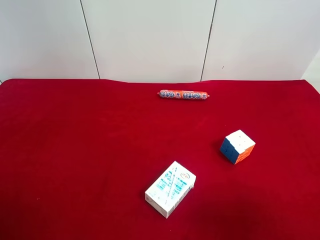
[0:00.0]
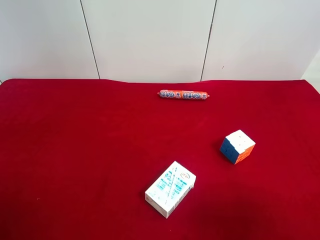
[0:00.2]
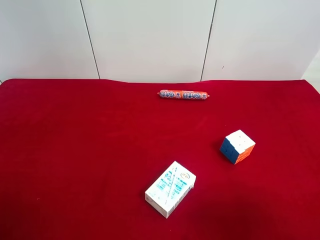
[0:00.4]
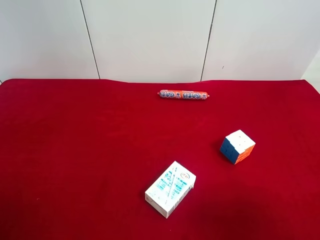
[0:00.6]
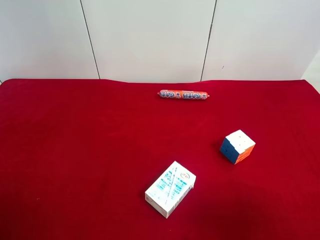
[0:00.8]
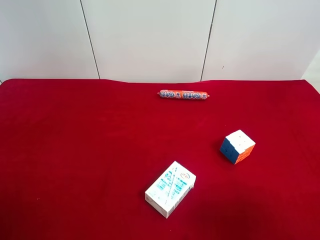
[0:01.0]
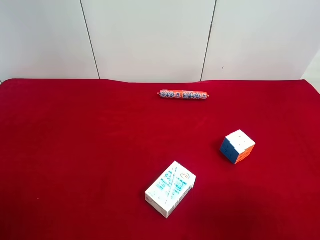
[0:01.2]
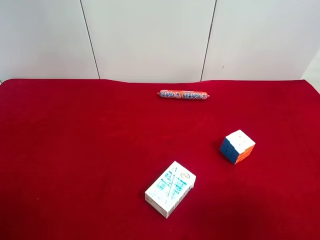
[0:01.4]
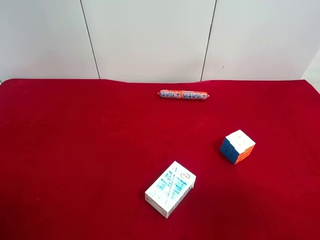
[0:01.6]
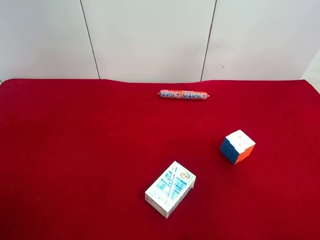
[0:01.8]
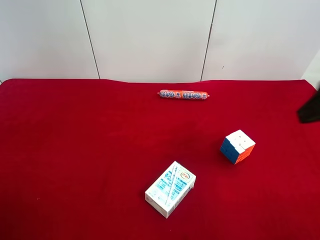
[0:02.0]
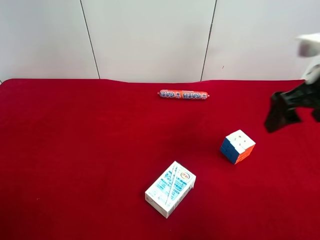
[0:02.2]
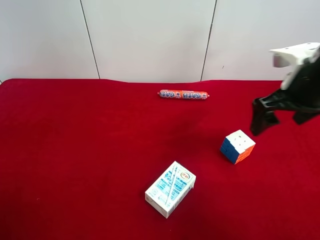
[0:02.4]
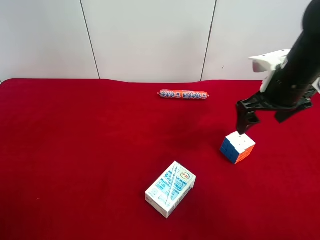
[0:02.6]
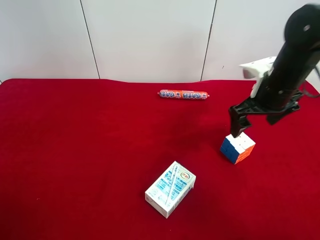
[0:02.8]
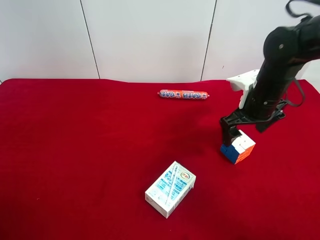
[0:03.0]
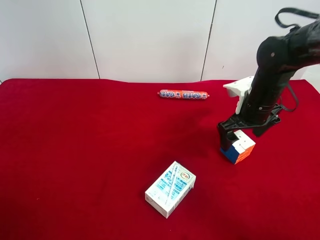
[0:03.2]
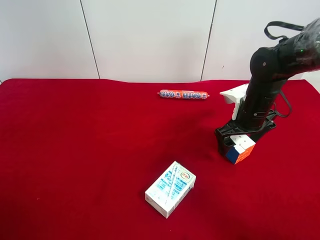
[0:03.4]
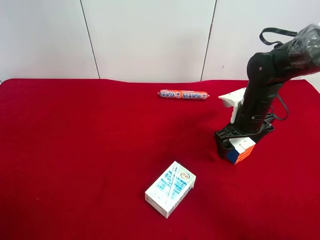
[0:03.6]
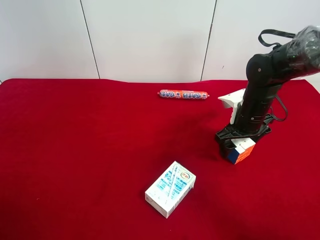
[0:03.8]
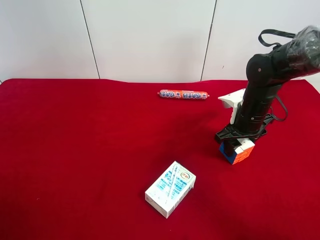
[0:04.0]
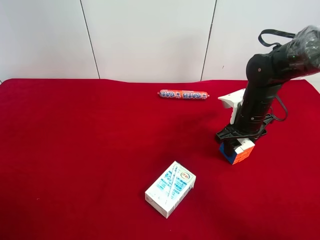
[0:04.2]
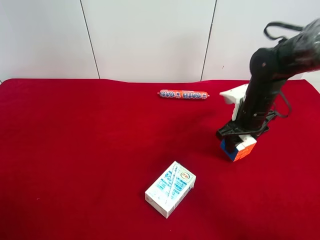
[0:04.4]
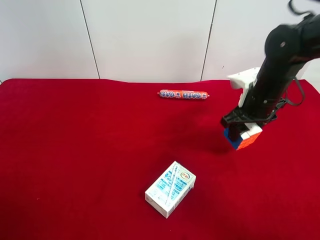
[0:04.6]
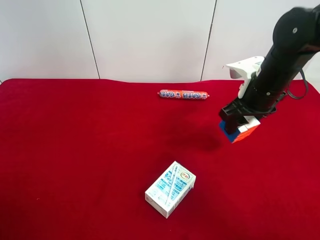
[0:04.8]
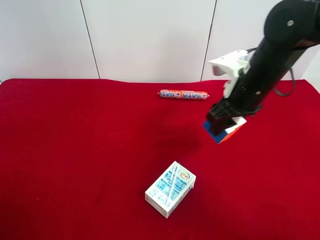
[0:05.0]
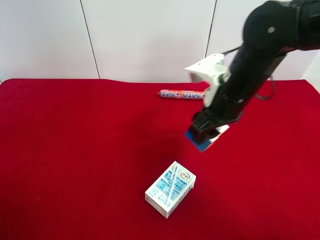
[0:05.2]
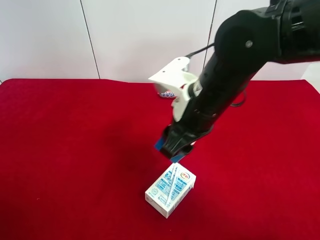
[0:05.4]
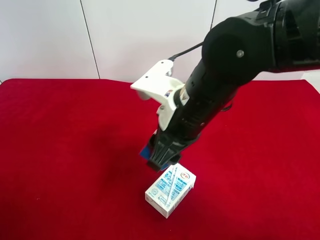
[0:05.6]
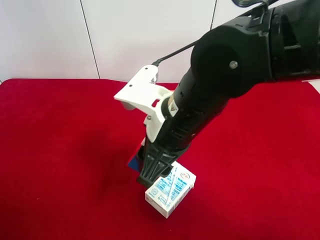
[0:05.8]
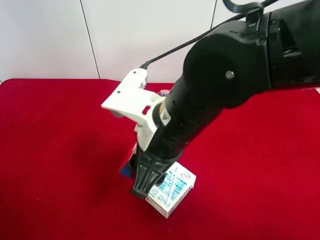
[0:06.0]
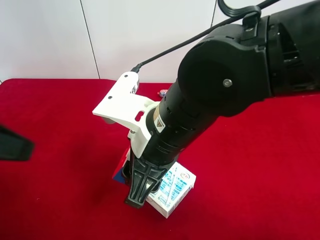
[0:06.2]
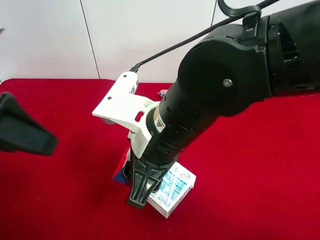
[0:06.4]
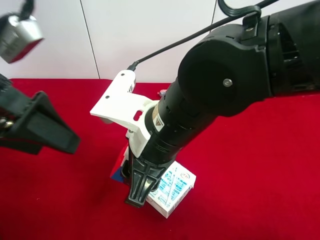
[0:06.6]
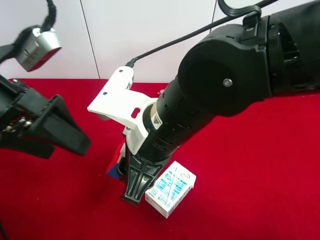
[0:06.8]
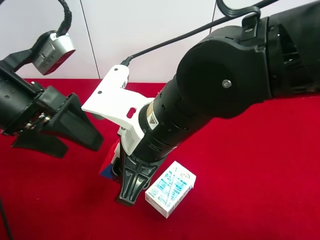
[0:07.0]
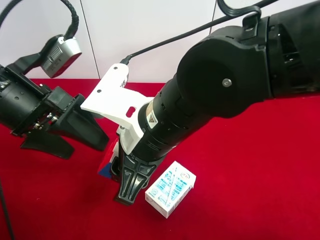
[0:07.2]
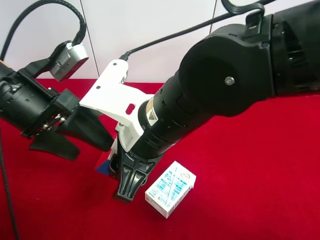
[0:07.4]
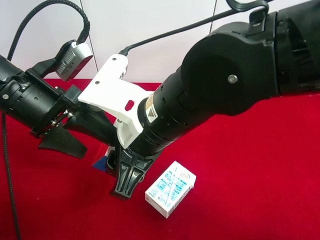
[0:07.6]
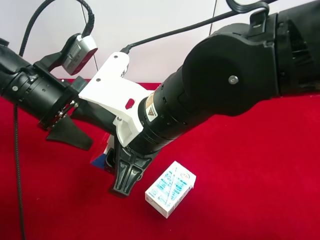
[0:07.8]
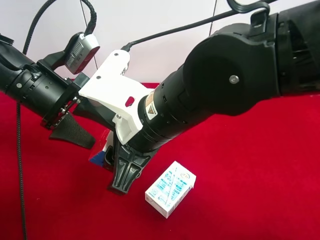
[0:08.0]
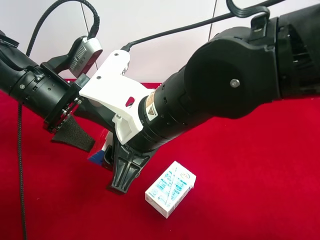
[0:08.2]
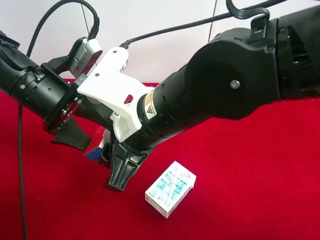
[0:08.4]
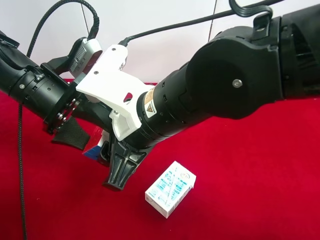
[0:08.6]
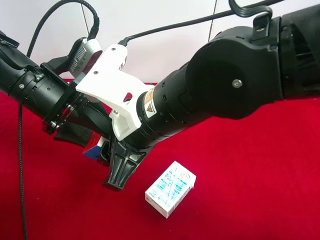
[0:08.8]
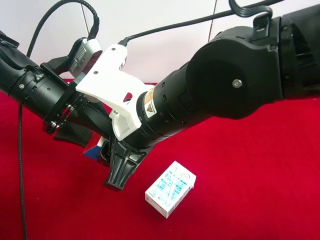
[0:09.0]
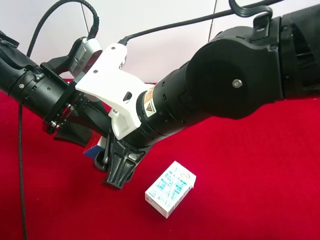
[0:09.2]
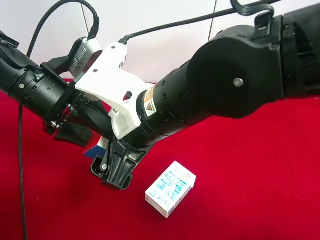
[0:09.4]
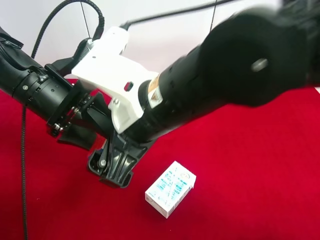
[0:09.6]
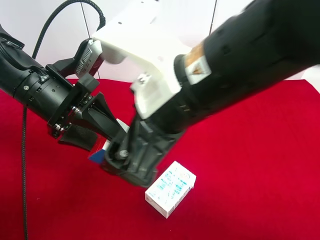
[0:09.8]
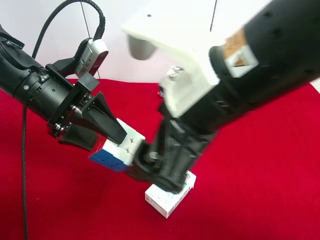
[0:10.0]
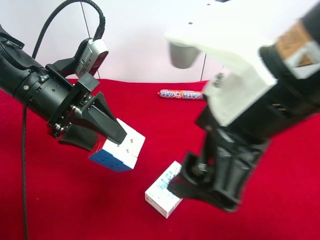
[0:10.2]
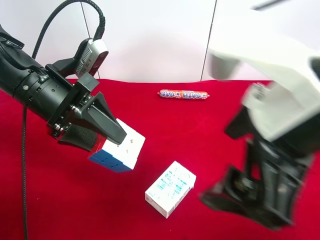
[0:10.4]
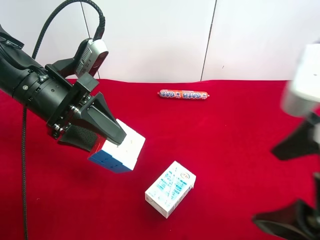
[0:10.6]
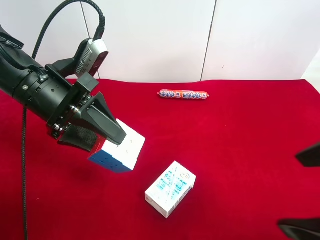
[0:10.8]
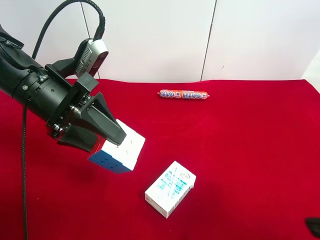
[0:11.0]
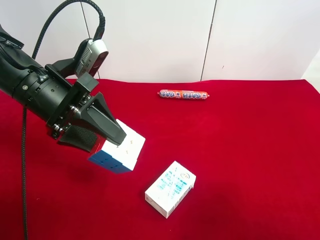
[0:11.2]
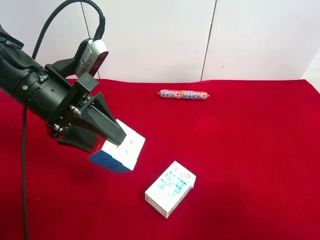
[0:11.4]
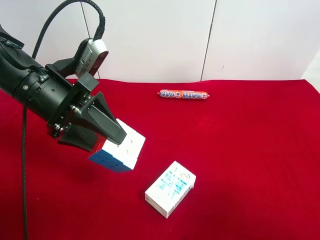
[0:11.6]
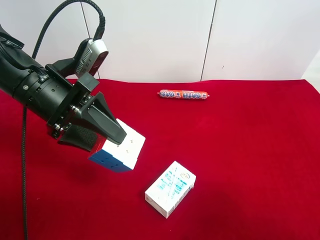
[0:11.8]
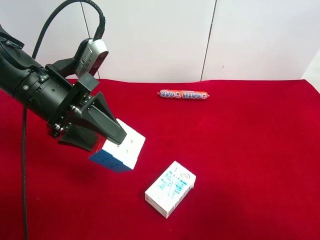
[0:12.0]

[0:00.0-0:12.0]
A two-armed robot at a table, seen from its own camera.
Task of the whole recording: use the right gripper to pick up the item and transfer it from the right gripper to the left gripper.
Step, 0.0 to 4.0 s: Use the right gripper to grab the Rubik's Cube on the right side of the table.
Step, 4.2 to 9.2 s: Pass the Rubik's Cube to the left gripper.
1.6 to 3.0 s: The right gripper travels forward and downward by approximately 30 cm.
3.0 to 4.4 s: The right gripper closes up.
4.4 to 6.0 s: The right gripper shifts roughly 25 cm to the left, backward and upward. Meanwhile the left gripper travels forward by some 10 cm.
6.0 to 7.6 s: The left gripper goes roughly 20 cm forward, to the right and downward.
7.6 to 9.0 s: The left gripper closes.
9.0 to 10.4 s: The right gripper shifts some 15 cm to the right, backward and upward, and opens its fingers.
10.4 to 12.0 s: The right gripper goes approximately 15 cm to the right and backward.

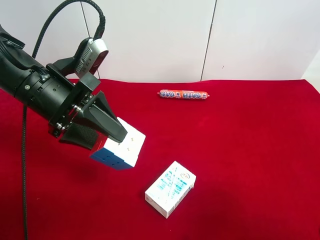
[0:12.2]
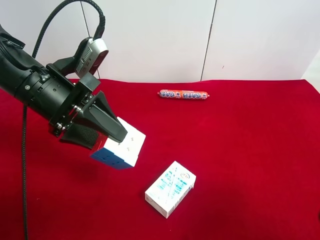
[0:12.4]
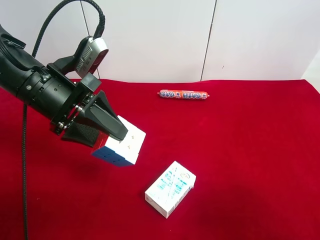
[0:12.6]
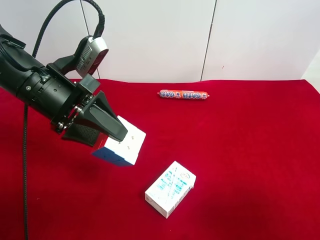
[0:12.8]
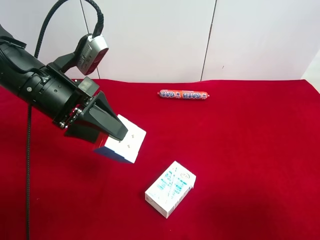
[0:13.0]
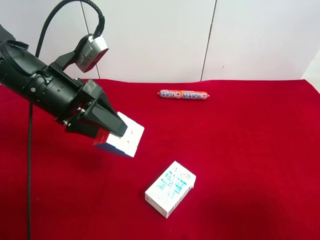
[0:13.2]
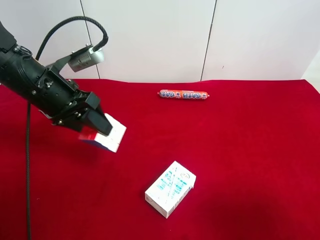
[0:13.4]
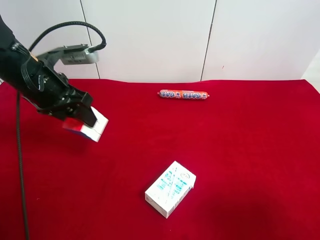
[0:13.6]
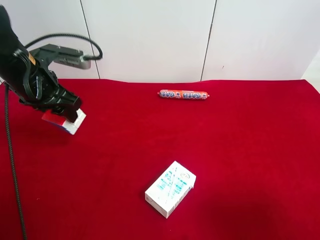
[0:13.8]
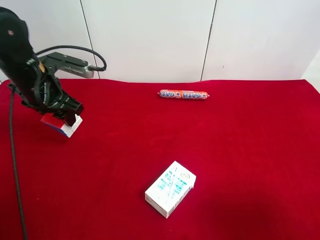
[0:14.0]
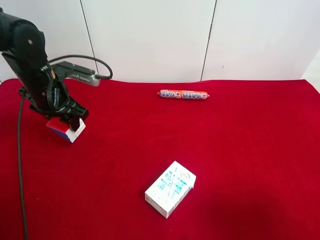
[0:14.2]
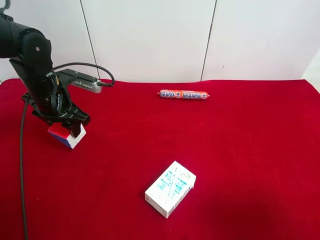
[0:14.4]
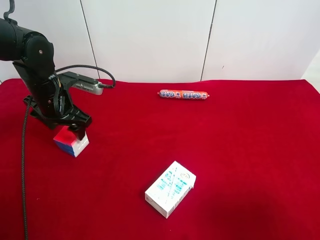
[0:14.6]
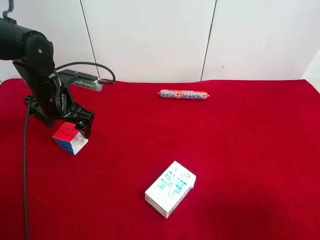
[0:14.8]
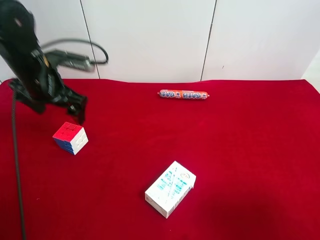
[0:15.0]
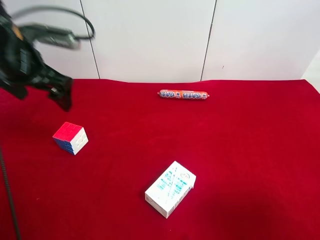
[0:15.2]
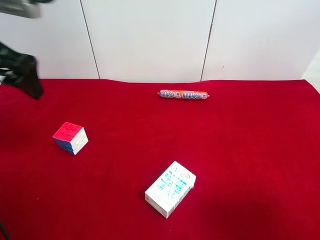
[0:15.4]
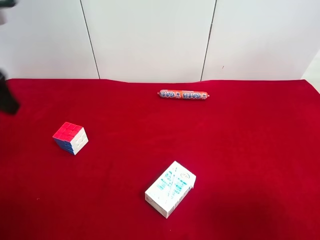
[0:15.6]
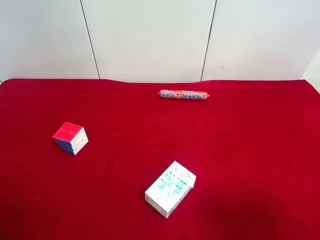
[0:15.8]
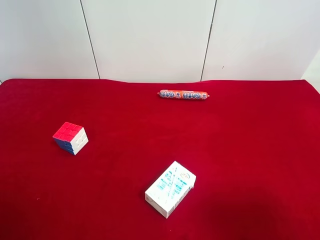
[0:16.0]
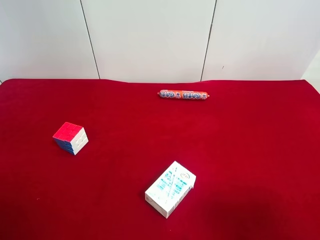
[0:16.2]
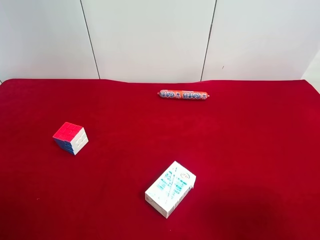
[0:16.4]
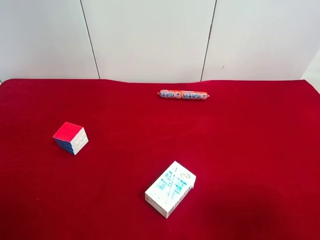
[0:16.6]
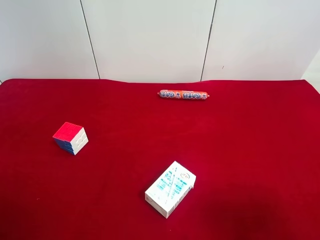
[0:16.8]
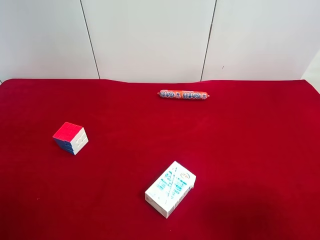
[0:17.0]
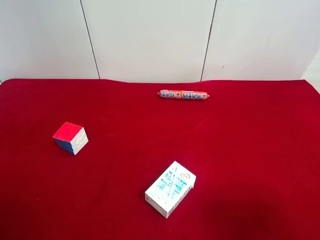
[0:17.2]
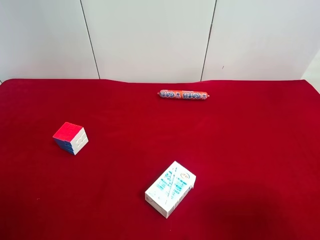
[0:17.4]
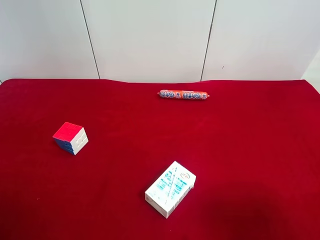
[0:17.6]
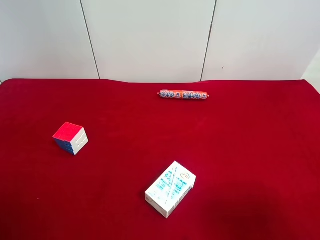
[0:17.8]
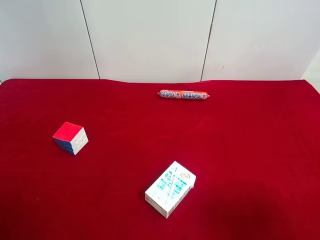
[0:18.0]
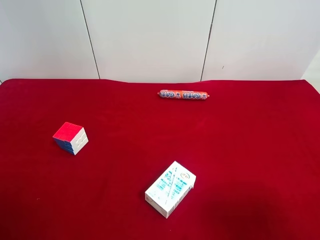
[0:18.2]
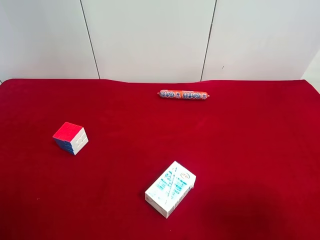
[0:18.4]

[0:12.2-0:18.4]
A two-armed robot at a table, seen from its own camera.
Task of the whole recording: use the right gripper to pick up the item and transfer it from the right gripper to the left gripper.
Step, 12.2 to 14.6 s: The left gripper places Rubik's Cube on the left side of the table.
12.2 to 13.8 s: The left gripper is displaced forward and to the left by some 10 cm.
13.8 to 15.4 s: The left gripper shifts approximately 15 cm upward and backward, and opens up.
15.4 to 16.8 s: The left gripper moves backward, roughly 25 cm.

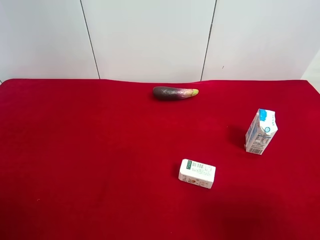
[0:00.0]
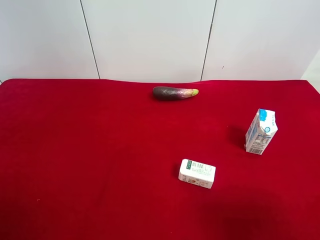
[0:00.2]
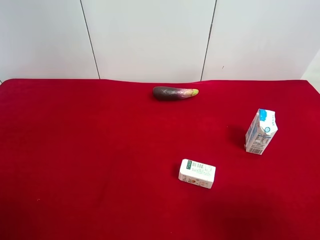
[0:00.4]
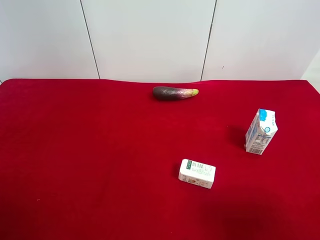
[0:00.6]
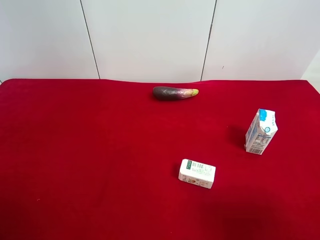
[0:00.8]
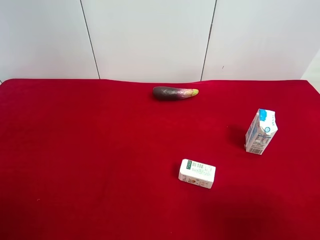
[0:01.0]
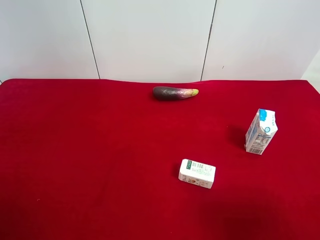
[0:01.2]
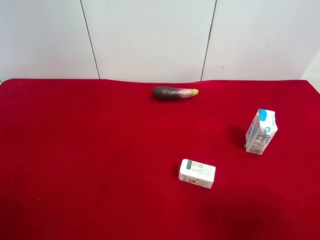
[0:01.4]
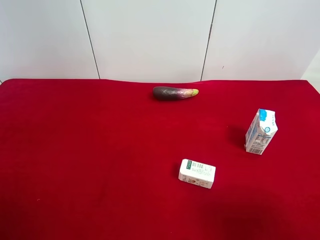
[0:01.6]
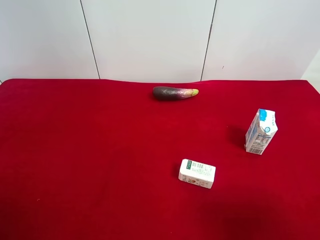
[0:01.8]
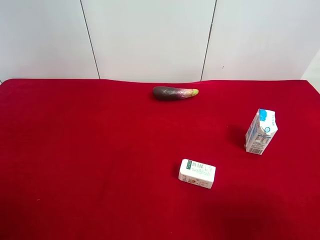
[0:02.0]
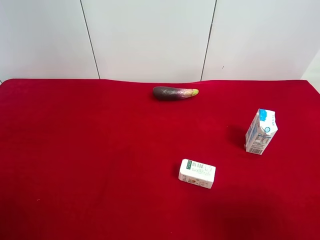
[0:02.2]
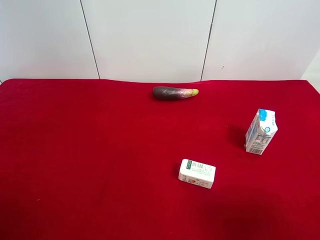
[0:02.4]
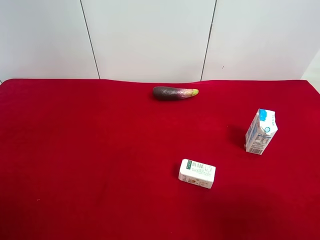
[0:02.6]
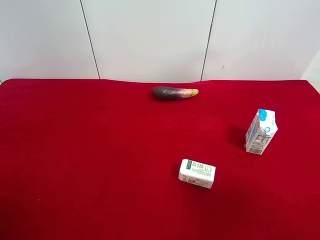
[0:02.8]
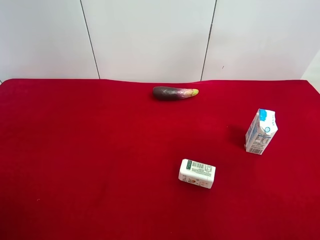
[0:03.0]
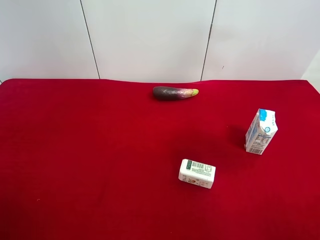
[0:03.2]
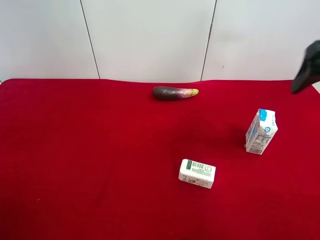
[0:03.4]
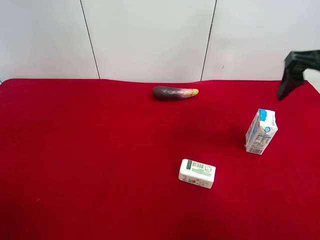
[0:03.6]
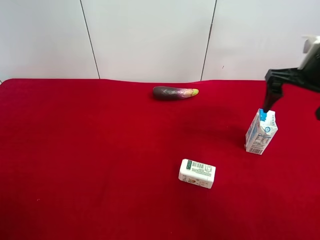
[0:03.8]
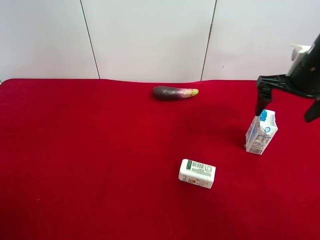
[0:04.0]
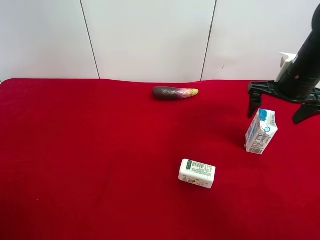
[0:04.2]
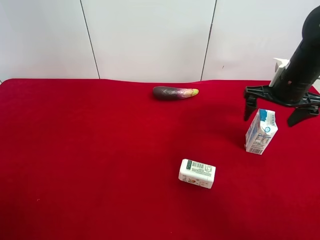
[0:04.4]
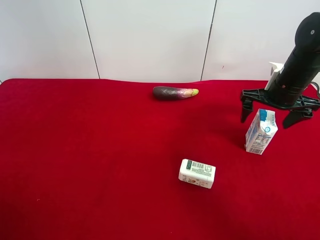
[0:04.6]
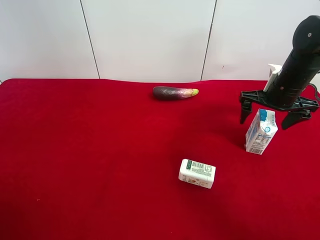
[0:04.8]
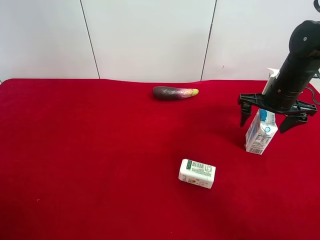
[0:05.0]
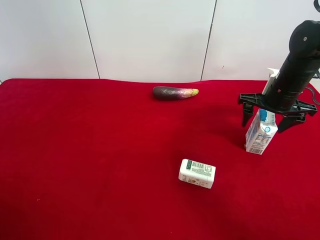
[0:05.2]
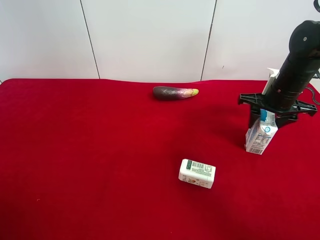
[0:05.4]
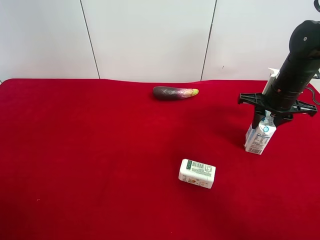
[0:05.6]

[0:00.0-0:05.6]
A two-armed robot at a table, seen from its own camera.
Task of the whole recording: use the right gripper to pick up the item and transfer it from the right gripper to the left gripper.
Step, 0.0 to 5.4 s: Use the right gripper to grab the milk on the right side of the table.
0.0 to 1.4 s: Both grippers stay about where they are.
2.8 to 4.2 s: The right gripper heads forward and downward, covering about 30 cm.
4.2 to 5.6 s: The right gripper closes its fingers.
